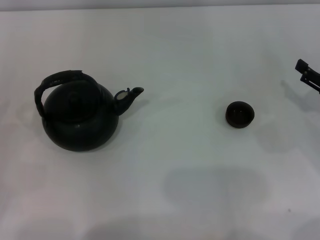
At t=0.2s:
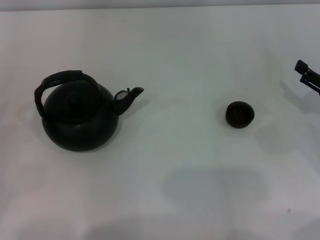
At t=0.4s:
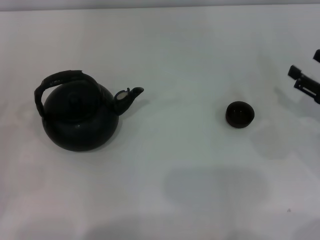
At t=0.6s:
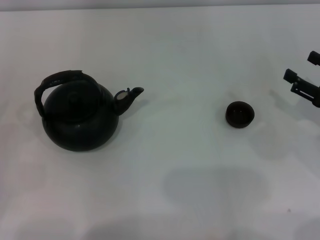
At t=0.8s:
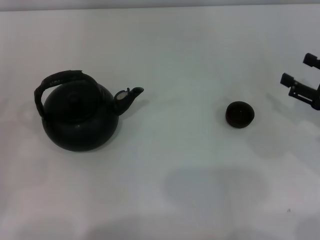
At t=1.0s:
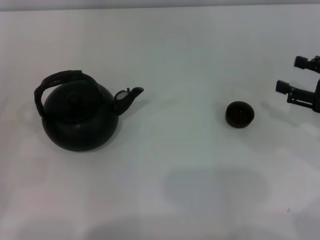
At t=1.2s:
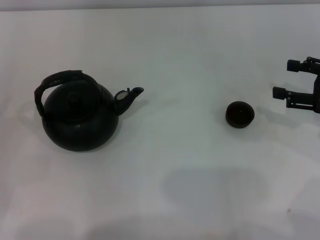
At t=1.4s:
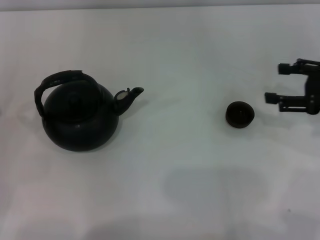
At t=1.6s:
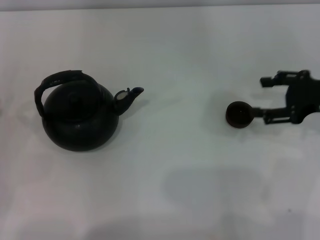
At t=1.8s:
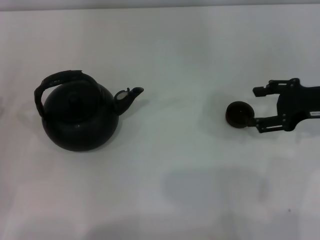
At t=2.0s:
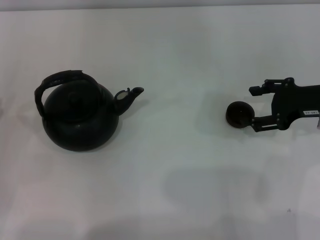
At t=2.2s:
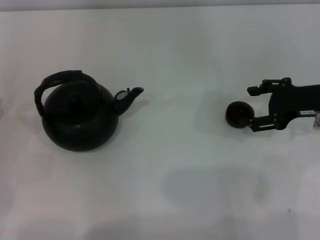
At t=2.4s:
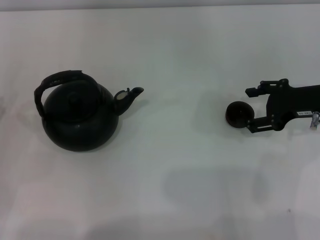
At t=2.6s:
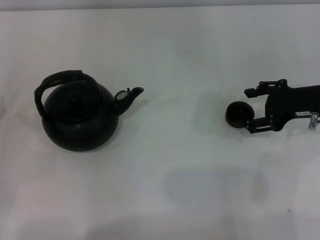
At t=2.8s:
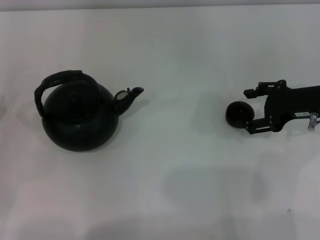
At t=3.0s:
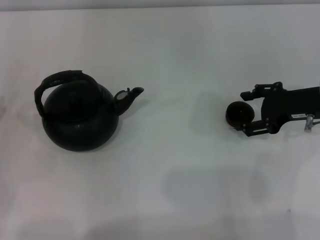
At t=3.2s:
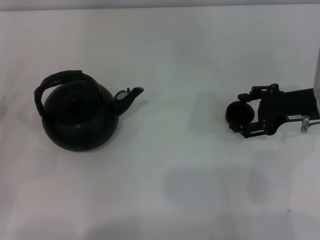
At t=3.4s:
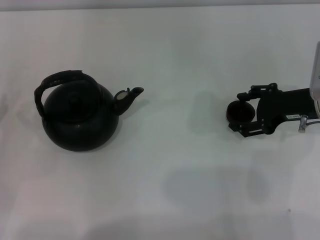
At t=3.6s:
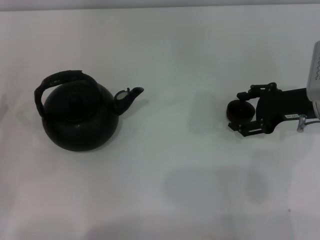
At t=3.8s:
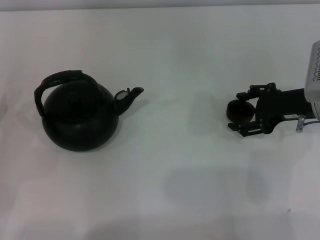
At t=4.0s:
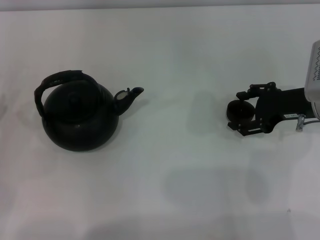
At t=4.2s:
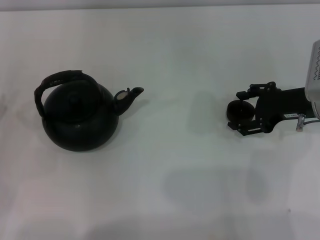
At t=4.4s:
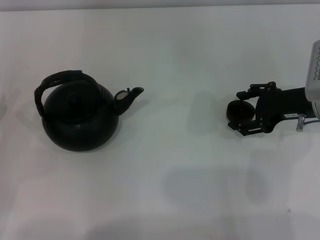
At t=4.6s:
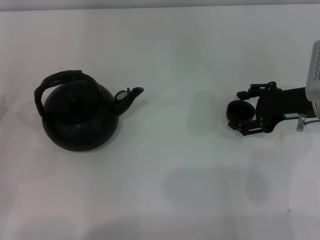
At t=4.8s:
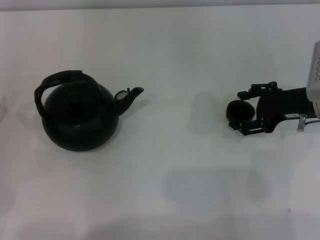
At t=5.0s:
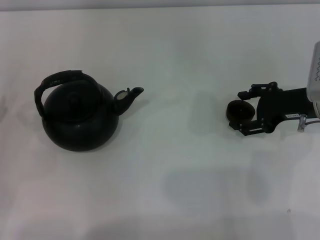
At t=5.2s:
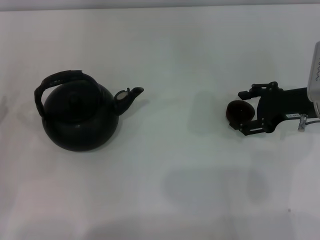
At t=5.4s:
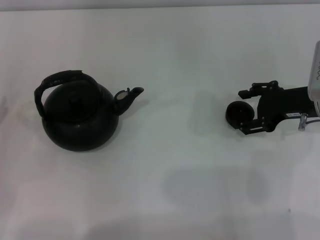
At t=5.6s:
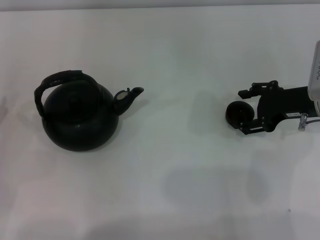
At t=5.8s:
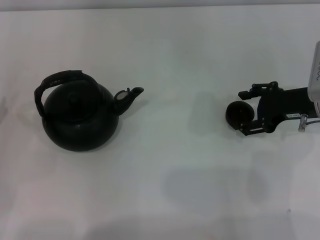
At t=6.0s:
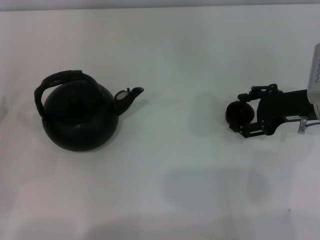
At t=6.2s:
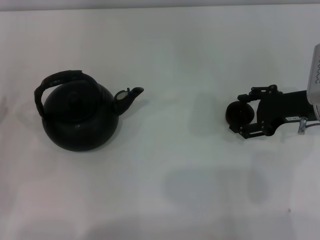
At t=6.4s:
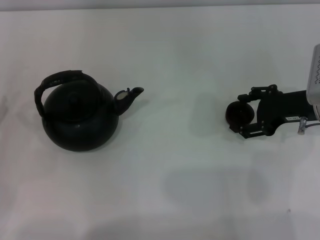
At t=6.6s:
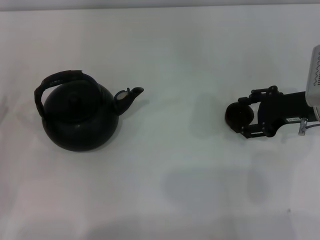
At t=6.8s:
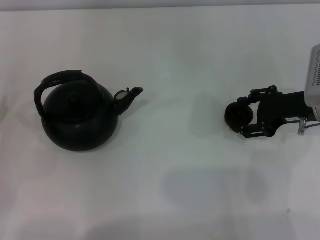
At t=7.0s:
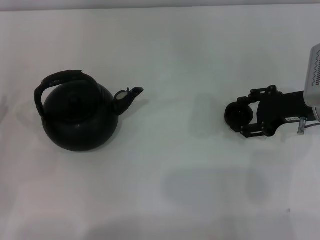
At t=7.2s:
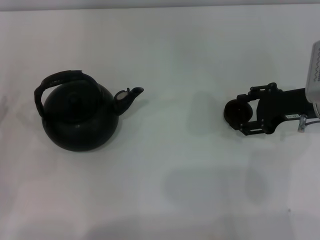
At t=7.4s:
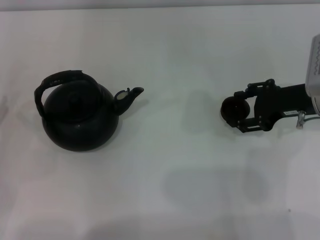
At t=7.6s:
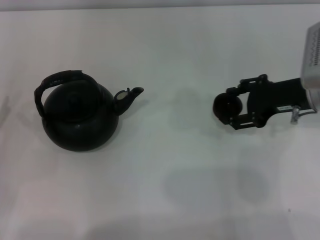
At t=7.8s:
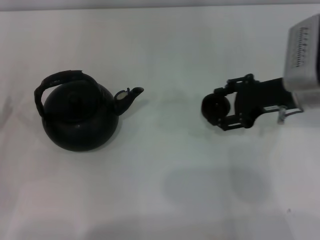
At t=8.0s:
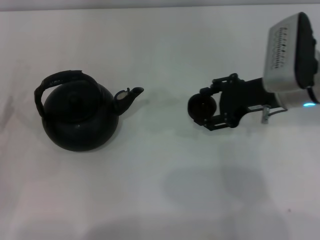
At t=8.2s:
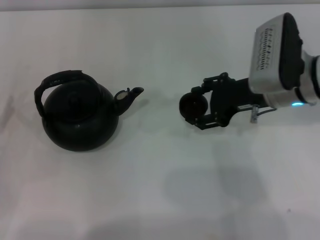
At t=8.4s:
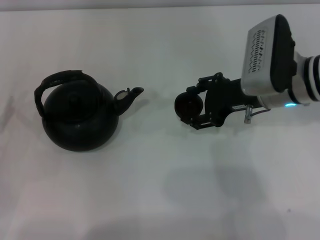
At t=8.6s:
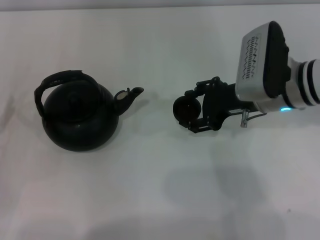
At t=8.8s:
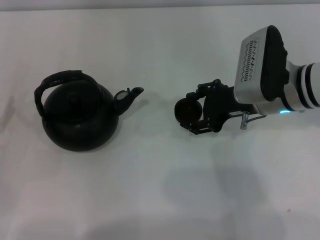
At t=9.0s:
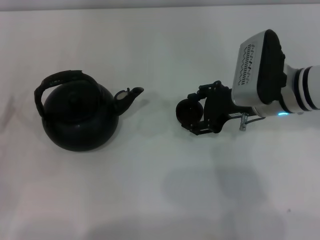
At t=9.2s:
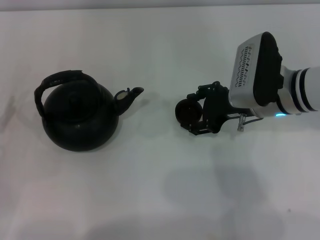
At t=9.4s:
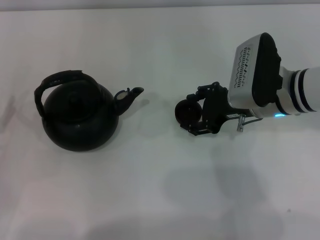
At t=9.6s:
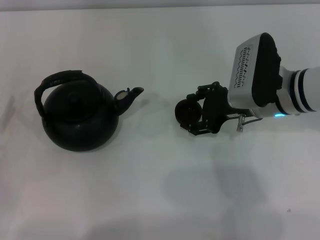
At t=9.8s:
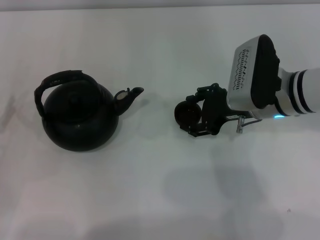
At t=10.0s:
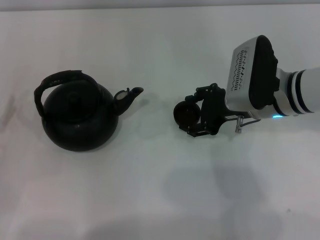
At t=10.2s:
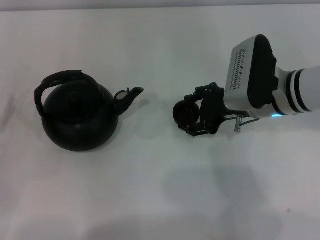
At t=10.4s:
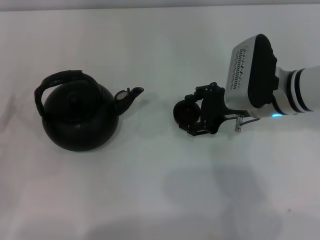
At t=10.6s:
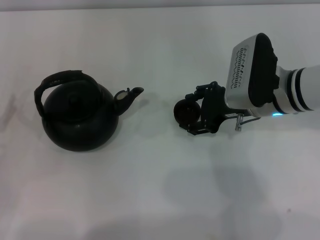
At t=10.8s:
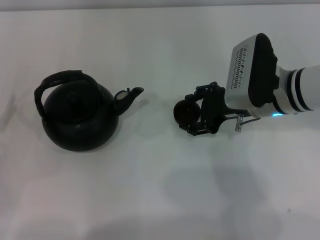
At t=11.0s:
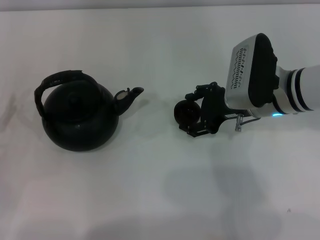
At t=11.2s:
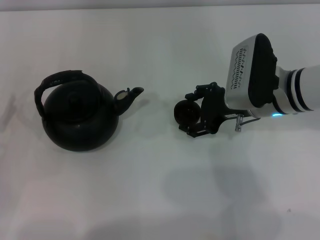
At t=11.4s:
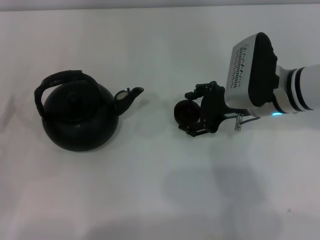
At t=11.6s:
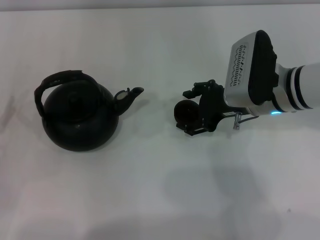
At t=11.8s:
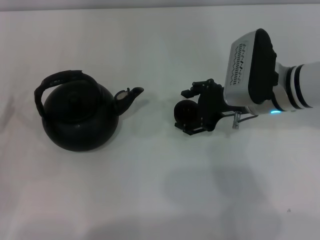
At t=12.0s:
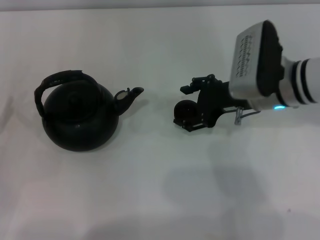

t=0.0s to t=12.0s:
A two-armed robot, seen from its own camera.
Task of the whole recording: Grasp the handle of the teapot with one hand and pour tea into the teacup.
Step, t=0.0s to t=7.6s: Pick up the teacup with the right gripper.
Step, t=7.8s to t=11.8s: Place the teacup in the center of view with the right gripper.
t=0.0s to t=1.6s: The right gripper moves upward, some 5 cm.
t=1.6s to t=3.0s: The grippers move only a little.
t=3.0s to t=6.0s: Both grippers stay about where they are.
t=6.0s to t=7.6s: There are only small adjustments of the grippers.
t=7.6s to t=9.0s: The right gripper goes approximately 5 cm to the left.
t=9.0s to t=10.4s: The two grippers keep their place.
t=10.4s to t=12.0s: The grippers move only a little.

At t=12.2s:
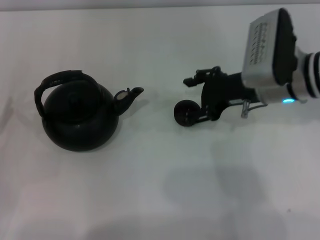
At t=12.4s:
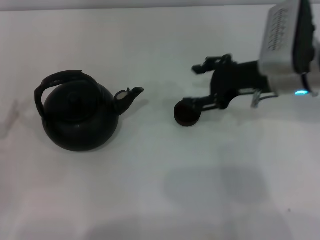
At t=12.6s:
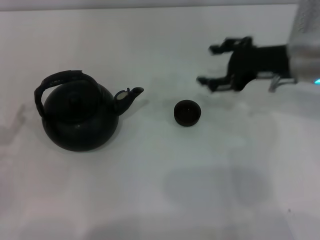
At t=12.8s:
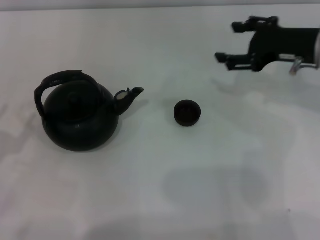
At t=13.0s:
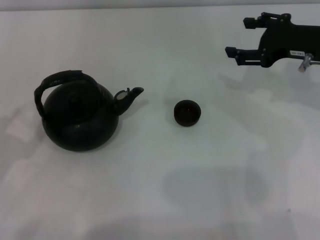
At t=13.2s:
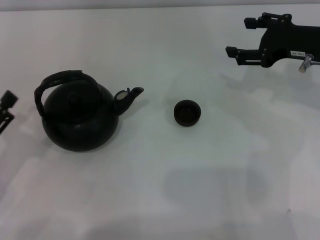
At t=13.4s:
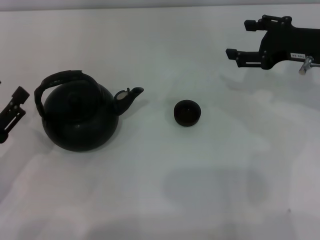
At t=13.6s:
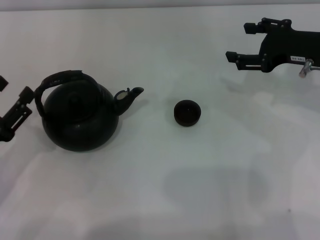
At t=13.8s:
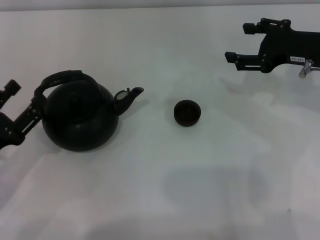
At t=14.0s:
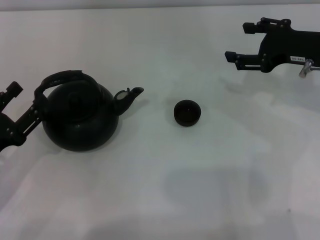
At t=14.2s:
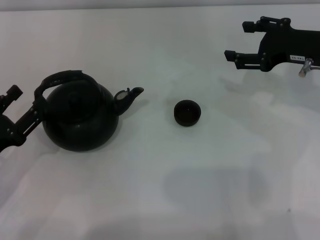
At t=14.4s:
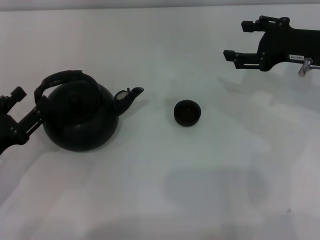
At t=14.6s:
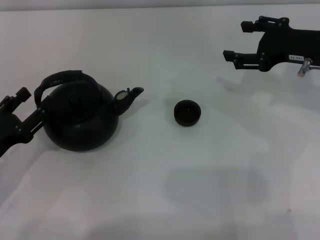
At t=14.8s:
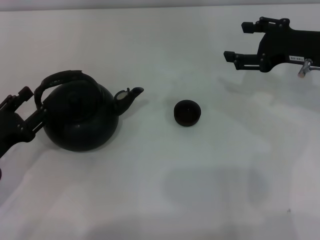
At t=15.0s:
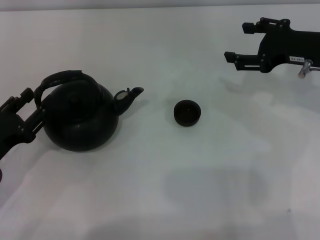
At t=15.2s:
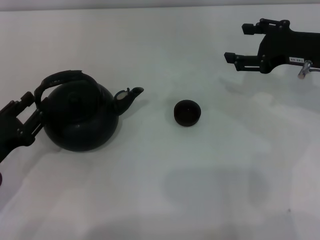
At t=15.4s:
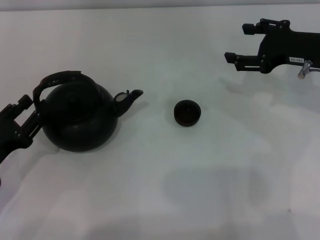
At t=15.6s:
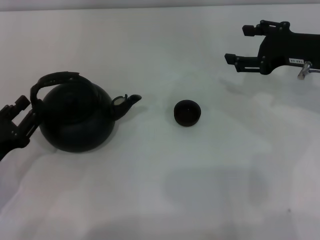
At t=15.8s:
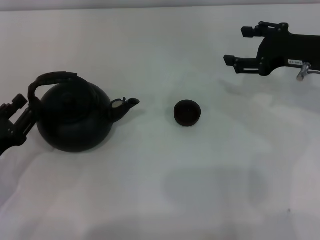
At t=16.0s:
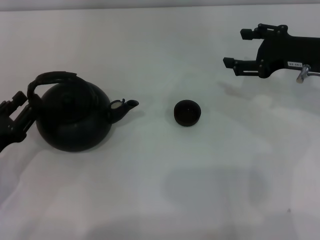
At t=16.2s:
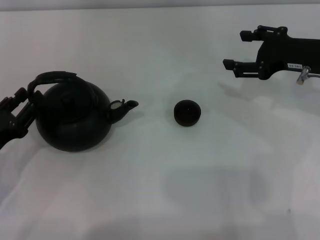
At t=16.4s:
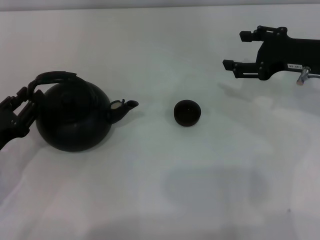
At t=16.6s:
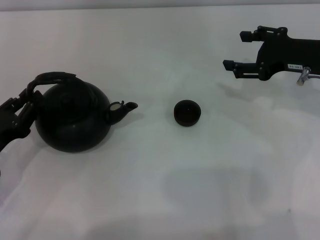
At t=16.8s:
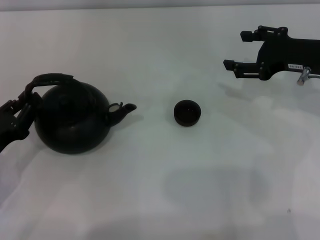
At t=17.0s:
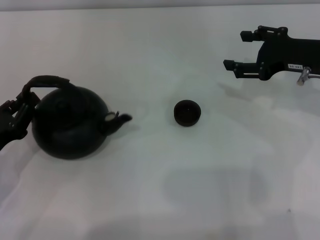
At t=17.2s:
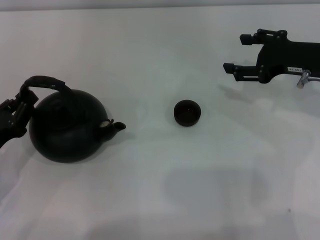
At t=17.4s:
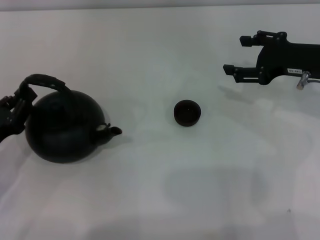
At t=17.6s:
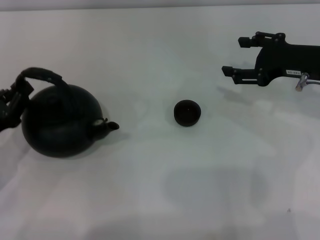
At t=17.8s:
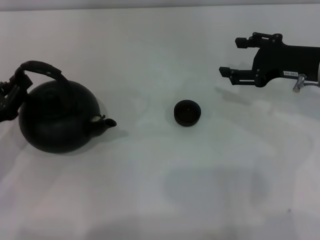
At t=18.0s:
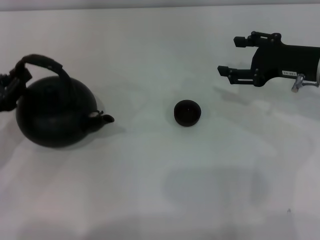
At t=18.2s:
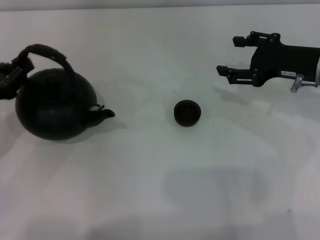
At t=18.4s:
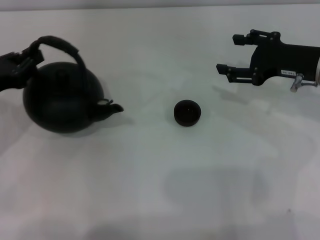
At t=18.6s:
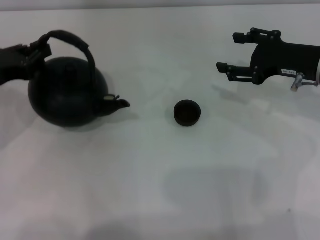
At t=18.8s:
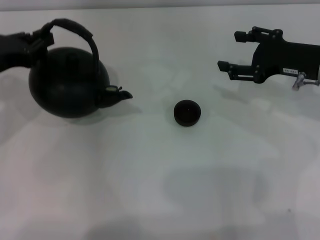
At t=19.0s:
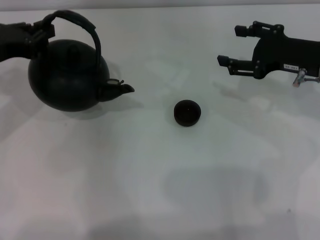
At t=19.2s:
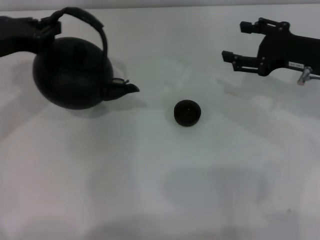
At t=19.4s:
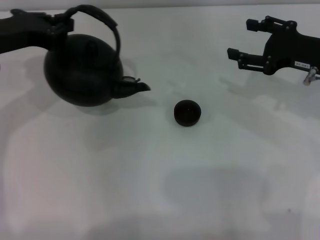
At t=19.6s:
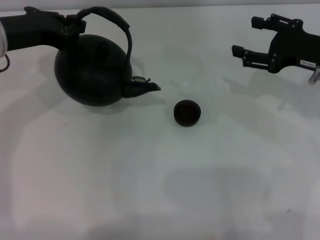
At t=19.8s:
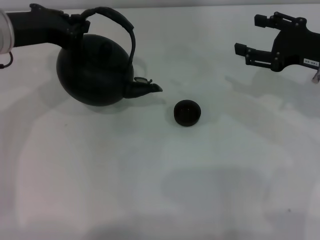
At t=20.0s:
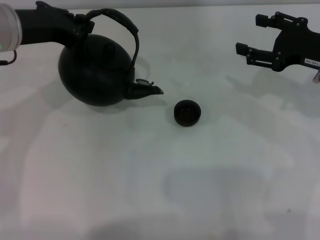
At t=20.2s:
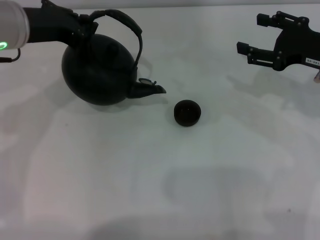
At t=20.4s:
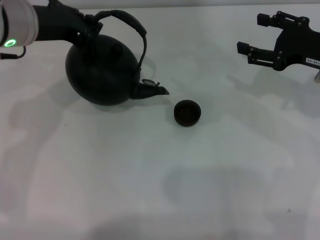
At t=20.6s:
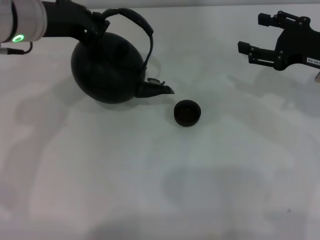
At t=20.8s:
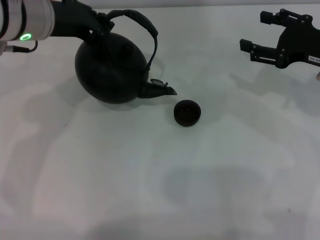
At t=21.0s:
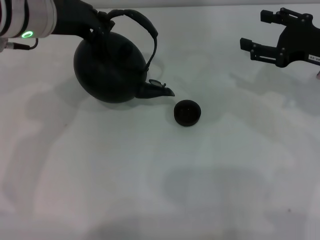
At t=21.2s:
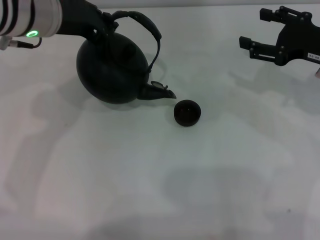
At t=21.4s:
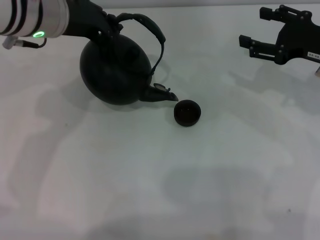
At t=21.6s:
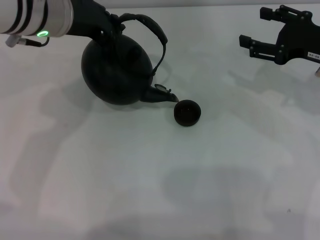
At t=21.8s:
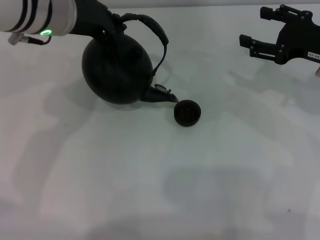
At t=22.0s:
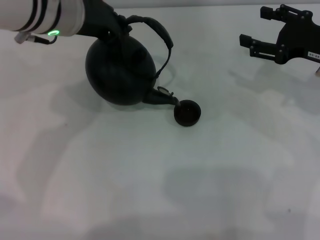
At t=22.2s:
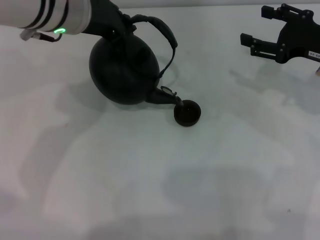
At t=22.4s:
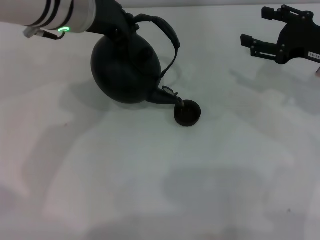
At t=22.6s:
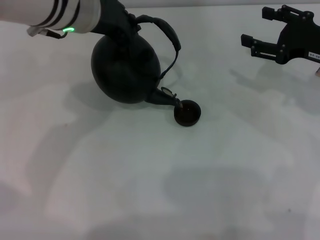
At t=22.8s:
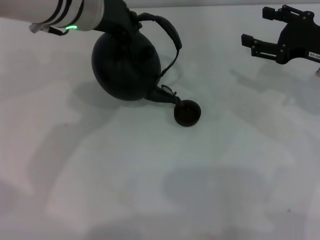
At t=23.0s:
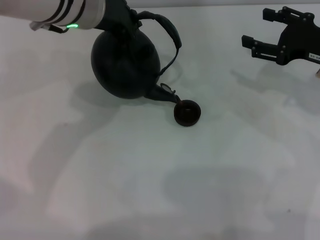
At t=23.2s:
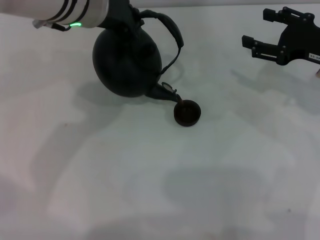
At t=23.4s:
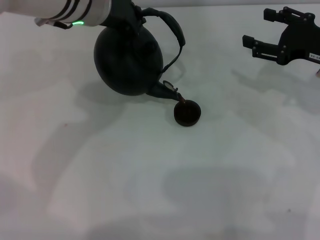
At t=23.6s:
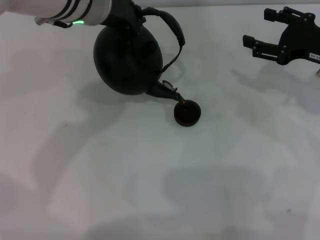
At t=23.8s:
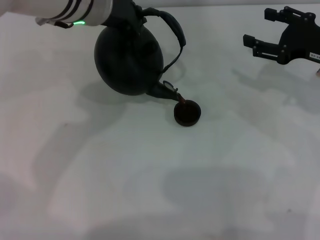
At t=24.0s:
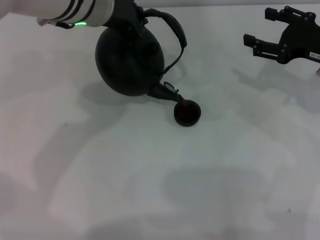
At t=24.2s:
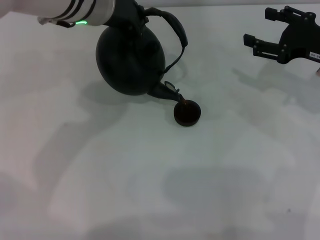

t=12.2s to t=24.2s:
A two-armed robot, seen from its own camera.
Task of the whole recording: Grasp the handle of the teapot with one hand and pour tea into the teacup.
Step, t=12.2s to t=18.0s: Pick up the teapot with the left gripper.
t=12.2s to t=13.8s: The two grippers go some 10 cm to the right.
t=13.8s to t=16.6s: The grippers move only a little.
t=16.6s to t=18.2s: The left gripper heads forward and upward, covering about 10 cm.
t=18.2s to t=19.8s: The left gripper goes roughly 15 cm upward, to the right and forward.
t=19.8s to t=21.2s: The left gripper goes approximately 5 cm to the right.
t=21.2s to t=22.6s: The left gripper shifts roughly 5 cm to the right.
t=22.6s to t=24.2s: The grippers move only a little.
